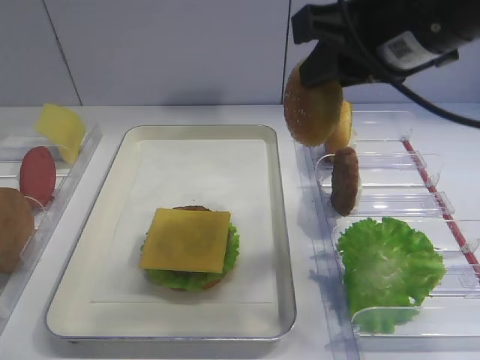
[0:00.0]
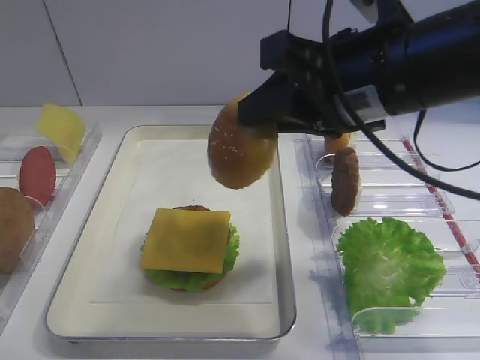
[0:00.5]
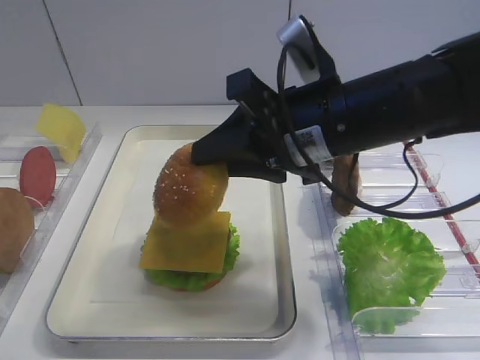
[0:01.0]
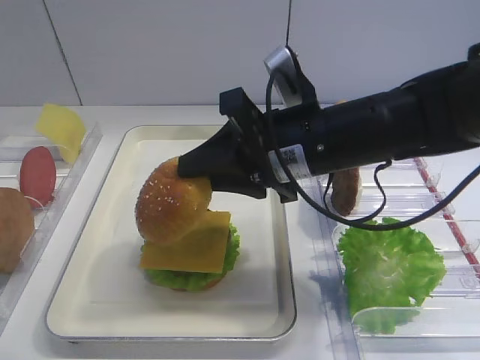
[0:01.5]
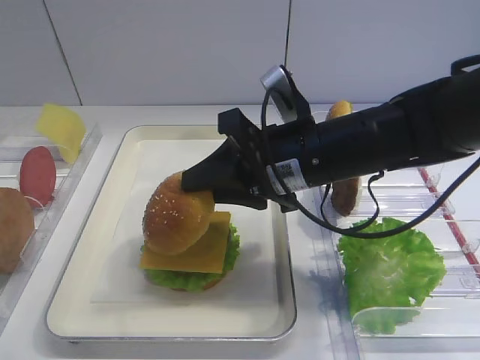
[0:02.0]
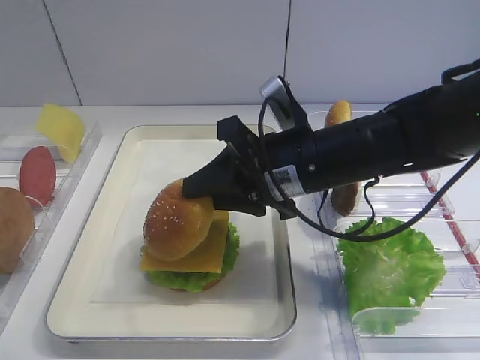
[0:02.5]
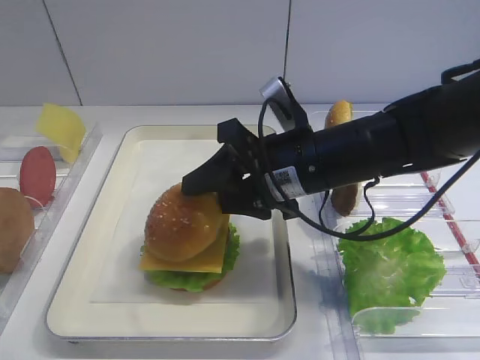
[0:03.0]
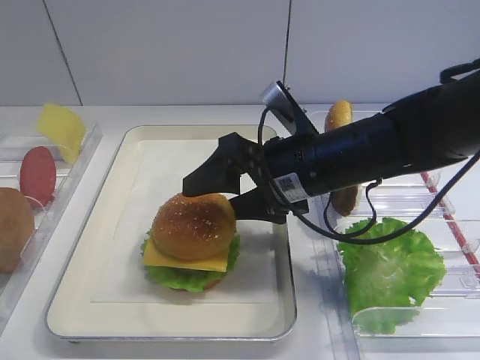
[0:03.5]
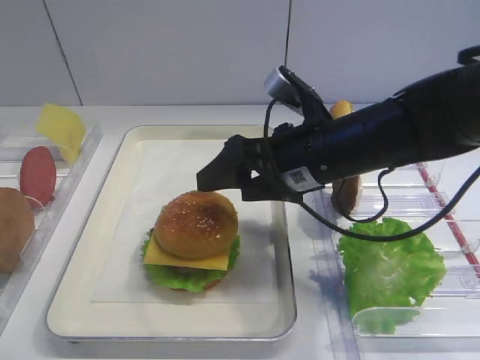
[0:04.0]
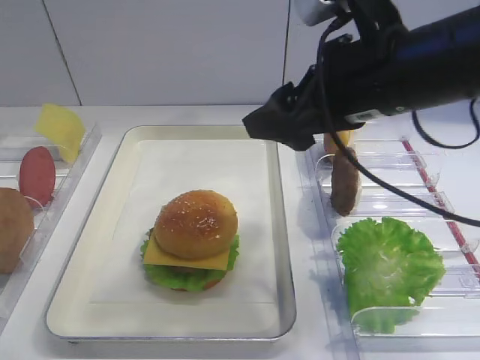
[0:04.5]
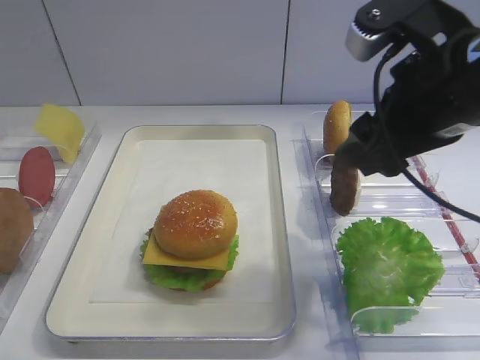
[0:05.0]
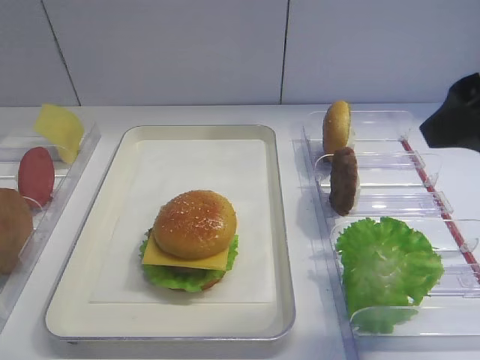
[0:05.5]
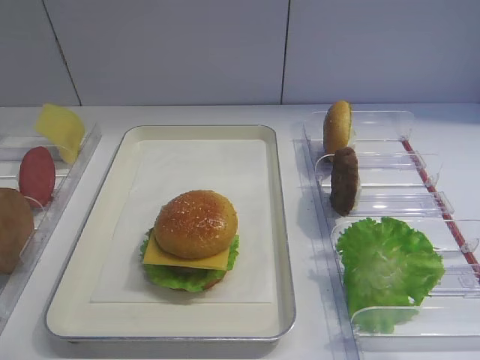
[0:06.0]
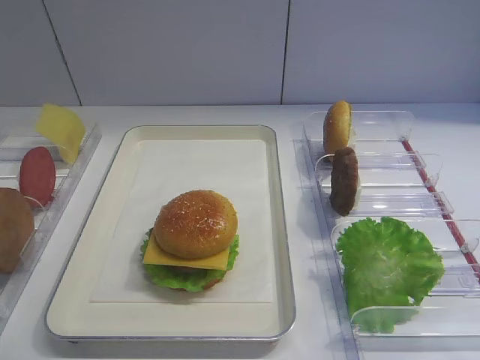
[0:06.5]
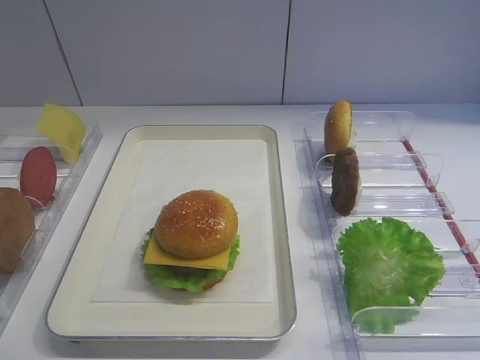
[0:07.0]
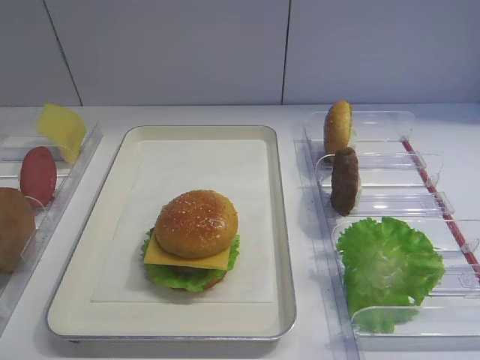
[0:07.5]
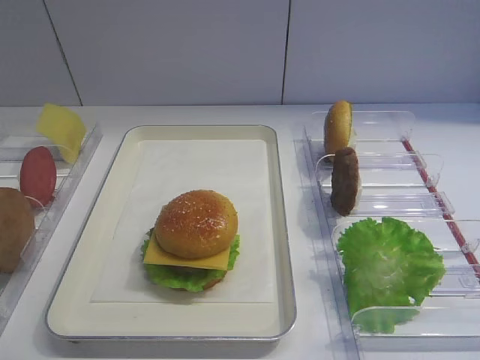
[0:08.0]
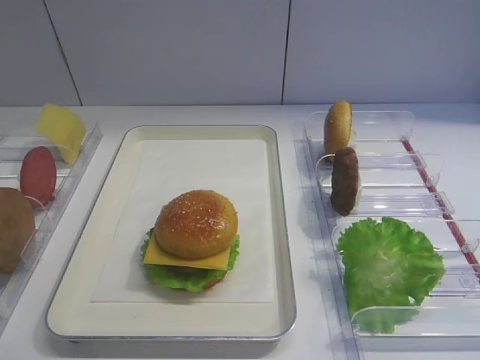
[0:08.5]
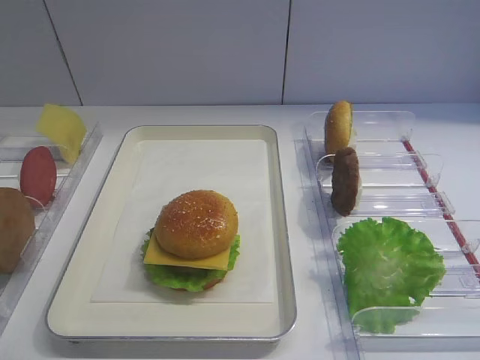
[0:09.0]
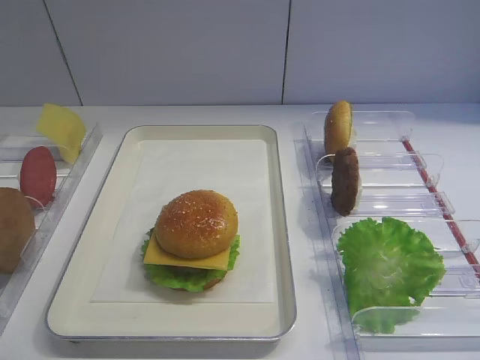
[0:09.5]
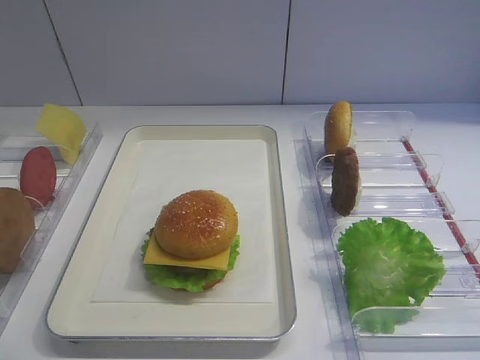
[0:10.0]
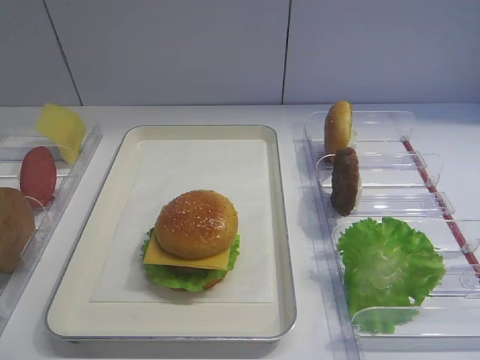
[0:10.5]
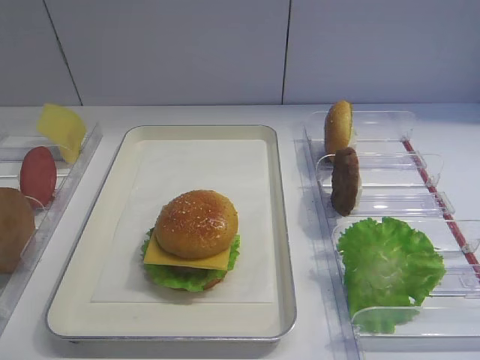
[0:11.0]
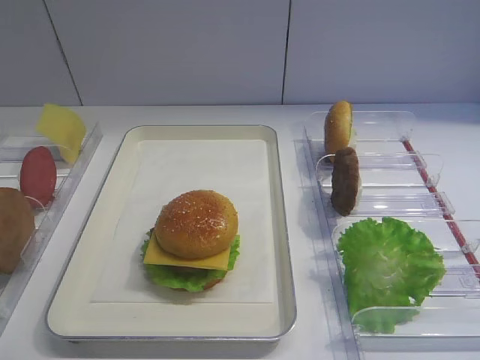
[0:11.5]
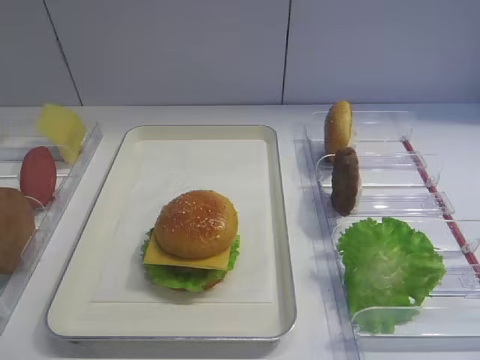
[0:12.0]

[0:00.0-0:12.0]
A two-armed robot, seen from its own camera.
Step, 0:00.0 to 0:04.0: Place the hamburger lid on the cheese slice with the right gripper.
0:00.0 to 0:02.0: The right gripper heads downward and to the left, covering approximately 15 cm.
0:02.0 to 0:04.0: The right gripper opens its fingers.
0:04.0 to 0:06.0: The right gripper travels backward, upward and to the right by about 30 cm.
0:08.0 to 0:12.0: Both grippers stay about where they are.

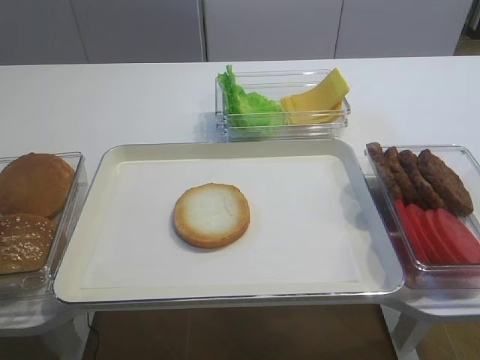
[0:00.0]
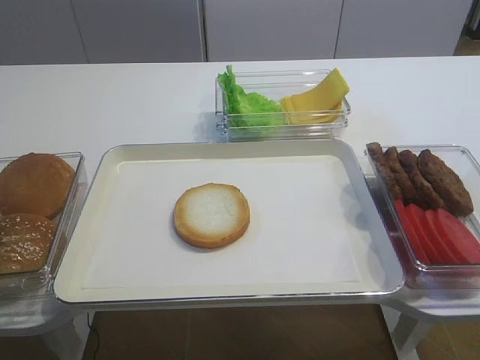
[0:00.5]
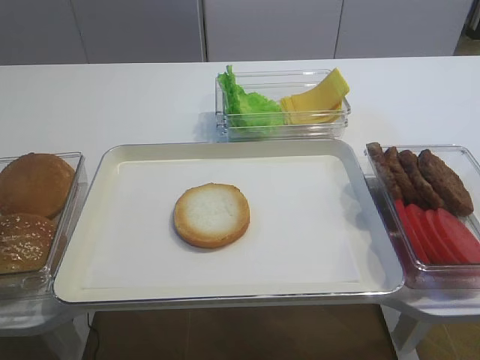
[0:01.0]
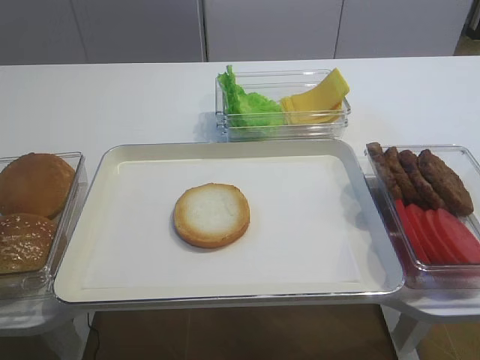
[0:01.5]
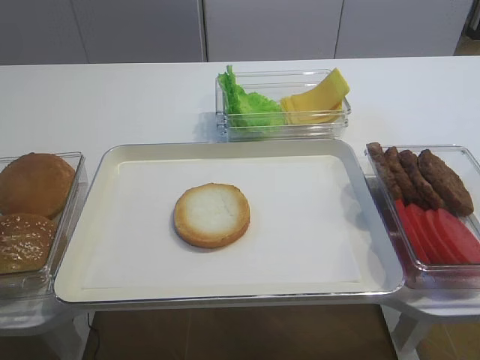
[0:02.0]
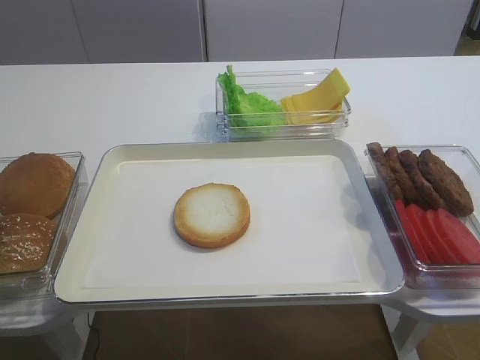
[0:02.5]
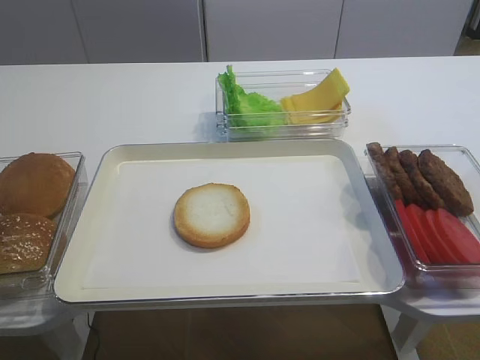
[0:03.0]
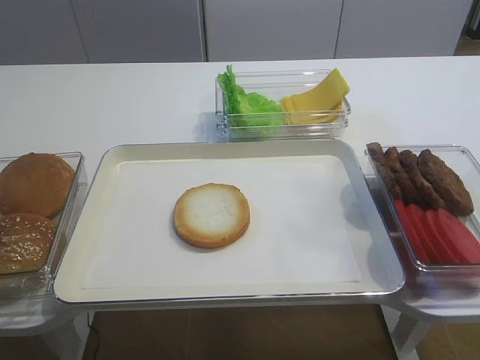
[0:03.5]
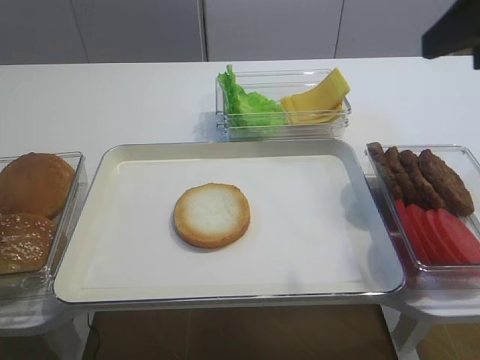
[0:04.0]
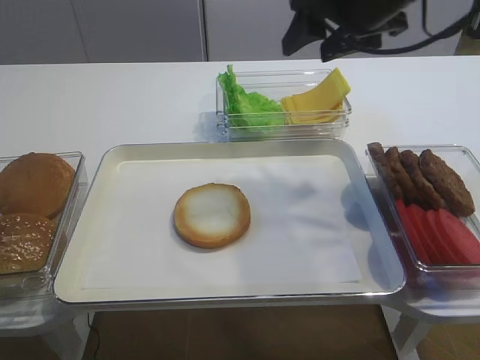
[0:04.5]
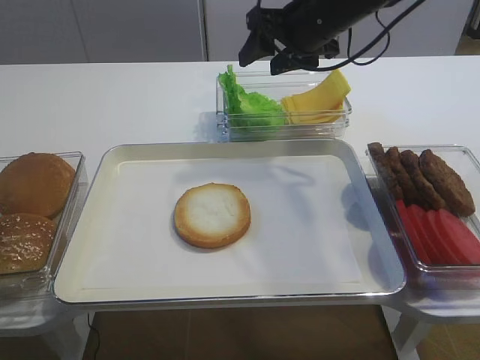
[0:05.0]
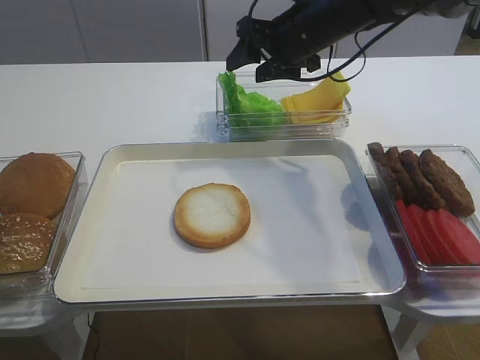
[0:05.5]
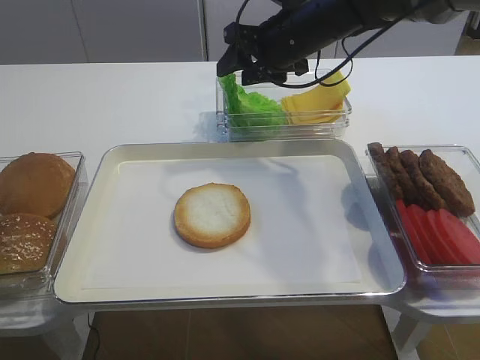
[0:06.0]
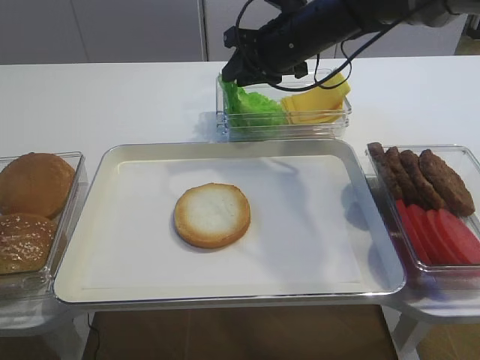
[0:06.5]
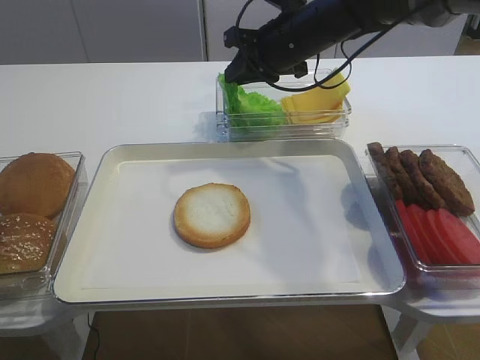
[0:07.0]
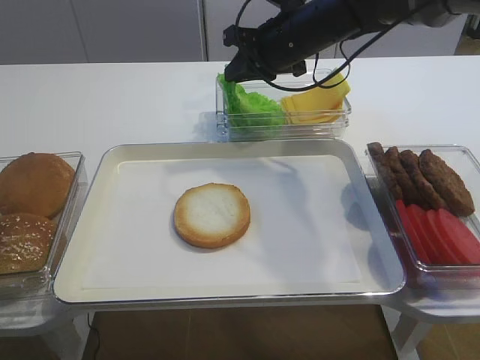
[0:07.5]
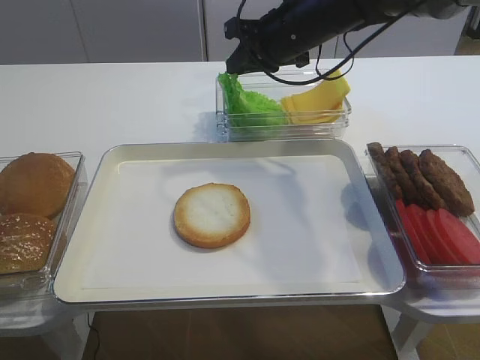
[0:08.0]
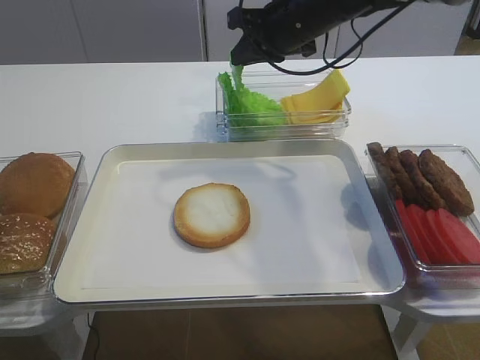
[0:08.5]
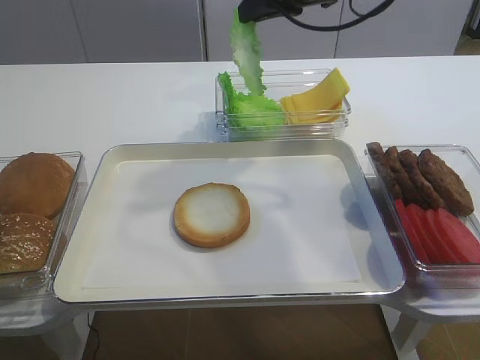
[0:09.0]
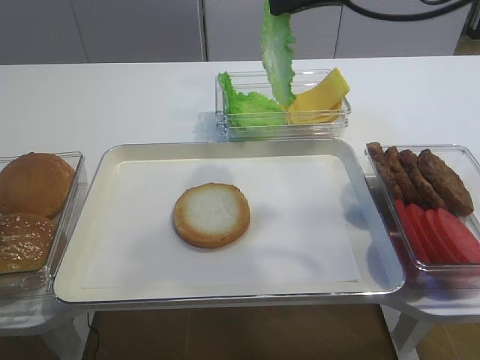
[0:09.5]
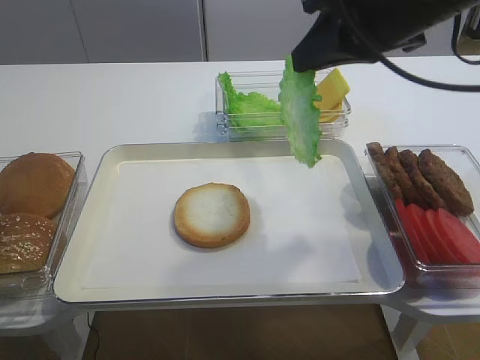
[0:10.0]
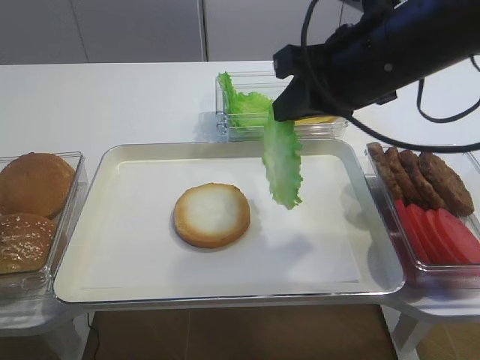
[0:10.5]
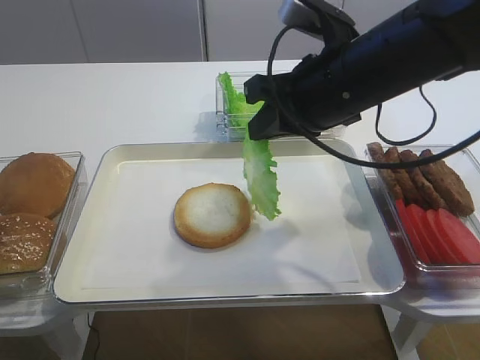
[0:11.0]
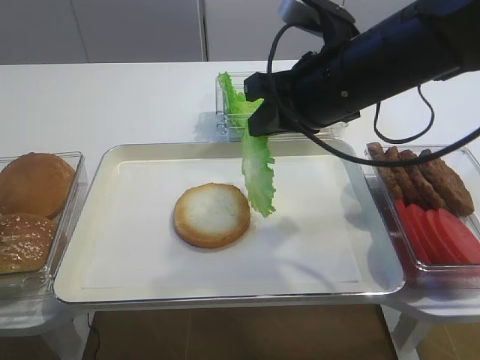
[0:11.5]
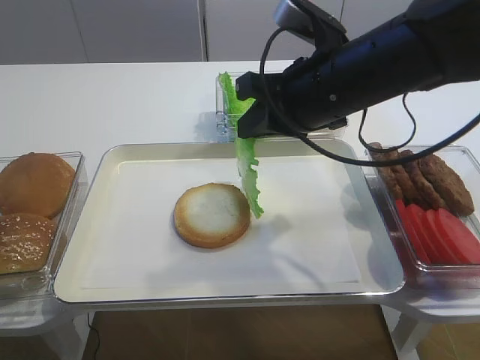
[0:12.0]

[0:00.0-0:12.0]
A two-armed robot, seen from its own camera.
Step, 0:00.0 to 0:08.5: Pick up the lettuce leaf with the right gripper.
0:02.0 to 0:04.0: The right gripper goes roughly 25 cm forward and upward, and opens up.
0:04.0 to 0:06.0: The right gripper is displaced forward, to the left and downward by approximately 30 cm.
0:06.0 to 0:08.0: The right gripper closes.
0:08.0 to 0:10.0: The right gripper heads backward and upward, covering approximately 20 cm.
0:10.0 to 0:12.0: The right gripper travels downward by approximately 10 cm.

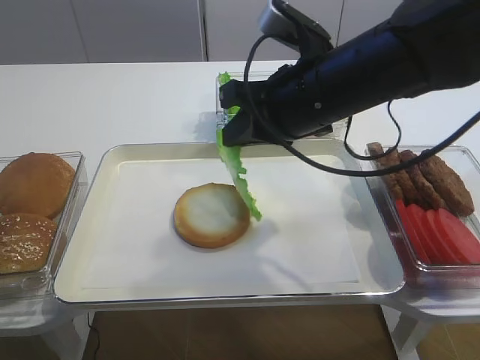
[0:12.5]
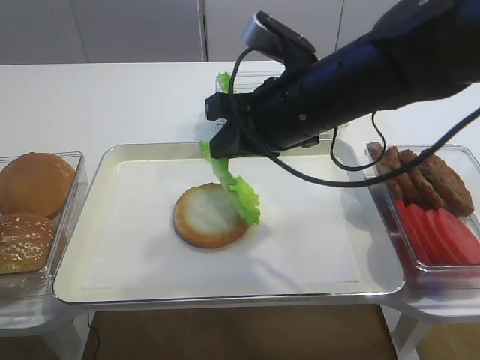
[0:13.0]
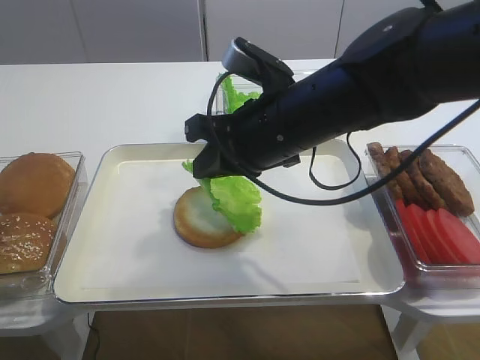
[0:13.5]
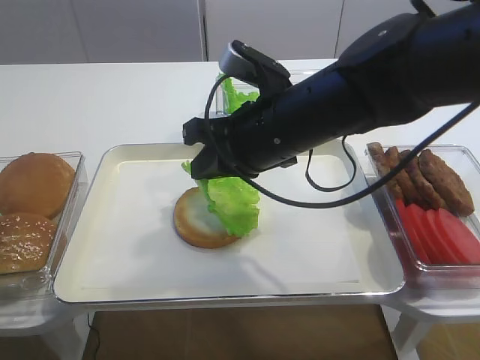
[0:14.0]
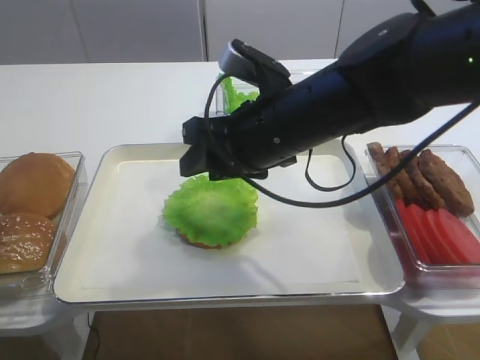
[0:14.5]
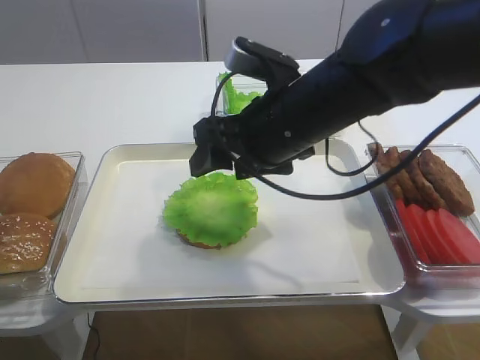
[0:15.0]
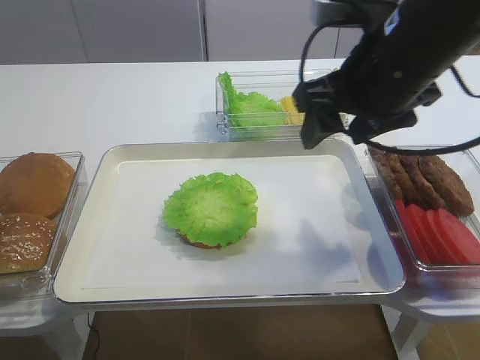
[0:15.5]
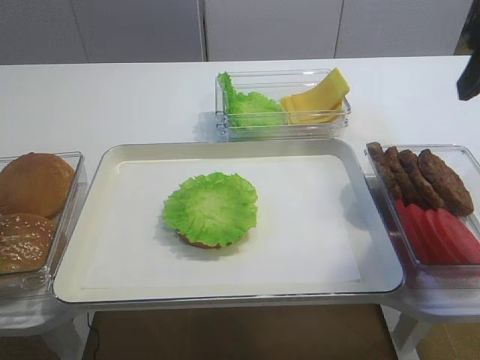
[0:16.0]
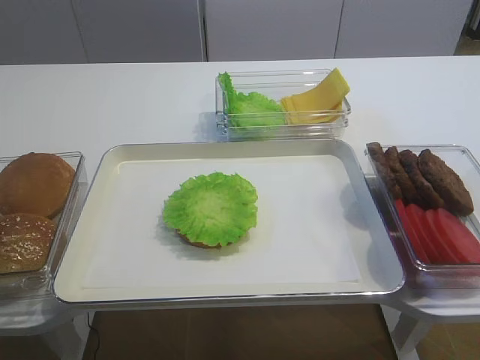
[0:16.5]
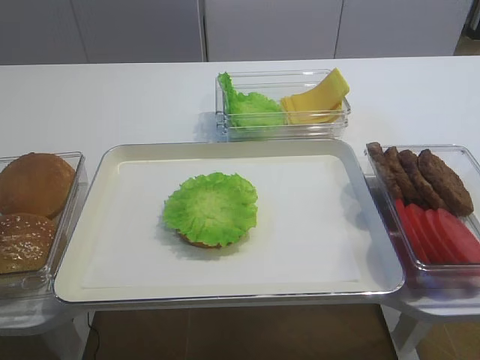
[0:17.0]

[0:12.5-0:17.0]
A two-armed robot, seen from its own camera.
Step, 0:12.5 to 0:14.5: Place the lettuce leaf on the bread slice with the right gripper.
0:12.5 to 0:14.5: The right gripper opens.
0:14.5 to 0:17.0: The right gripper shifts approximately 35 cm backward and to the right, and opens its fingers.
